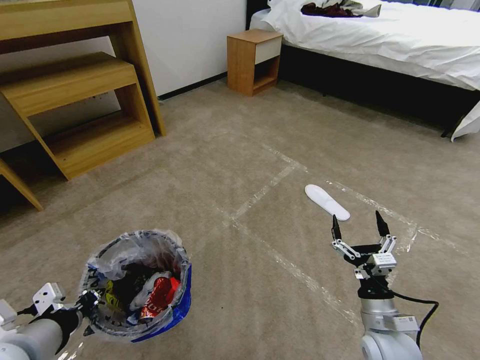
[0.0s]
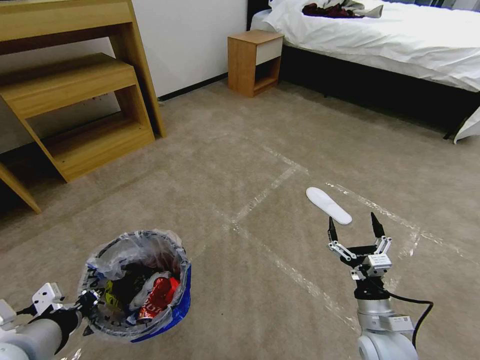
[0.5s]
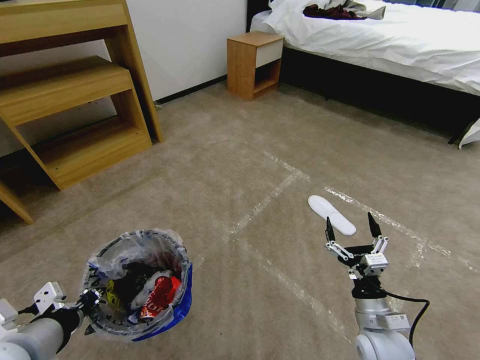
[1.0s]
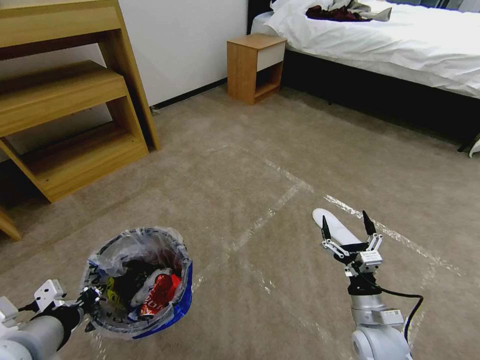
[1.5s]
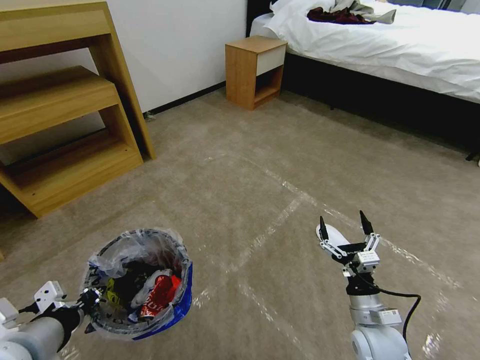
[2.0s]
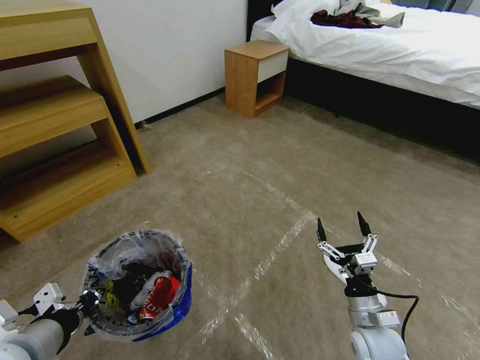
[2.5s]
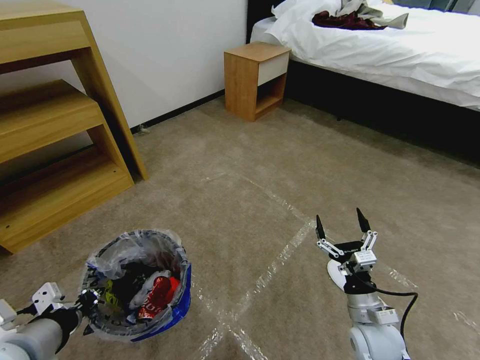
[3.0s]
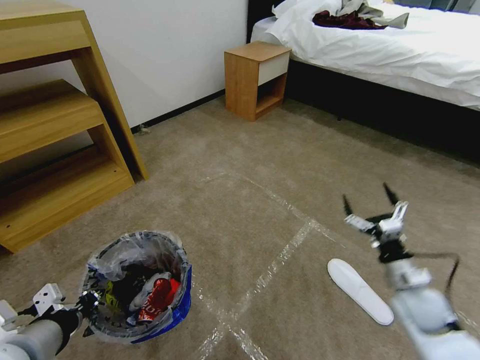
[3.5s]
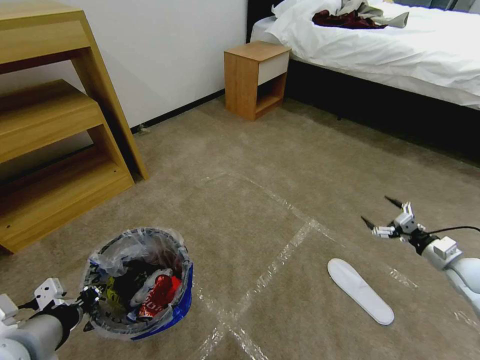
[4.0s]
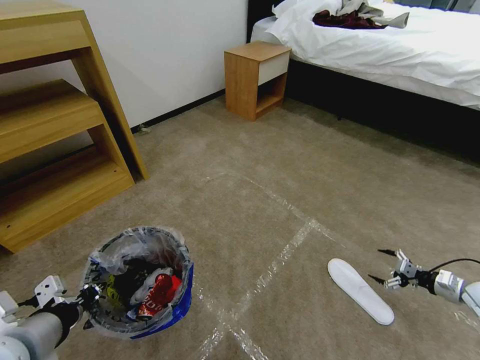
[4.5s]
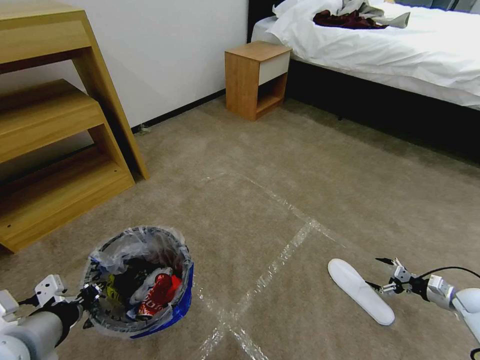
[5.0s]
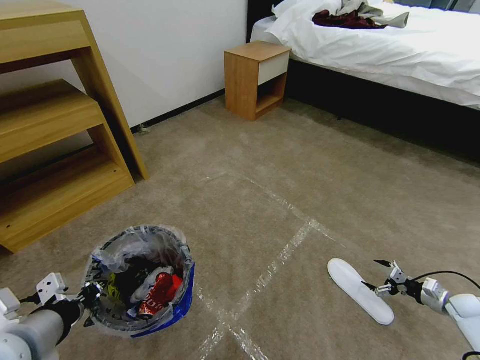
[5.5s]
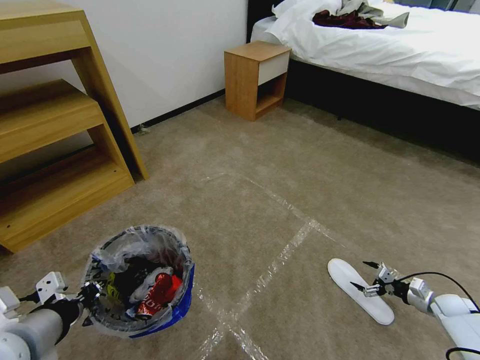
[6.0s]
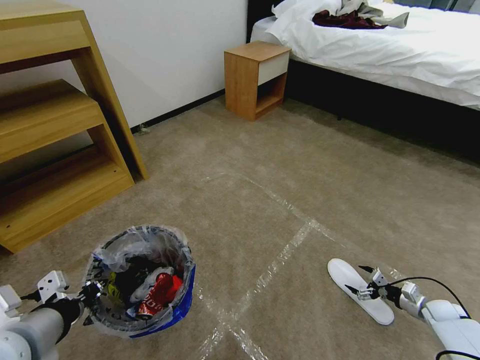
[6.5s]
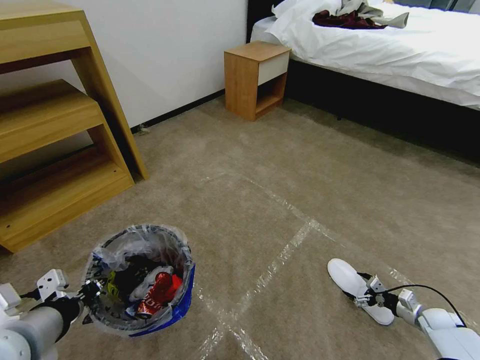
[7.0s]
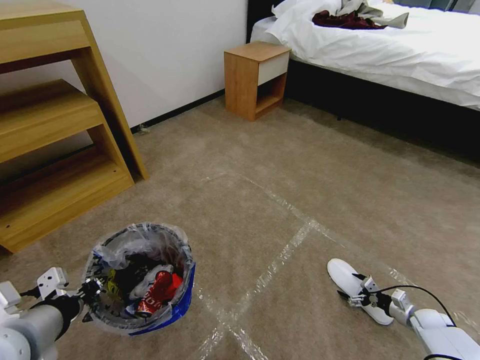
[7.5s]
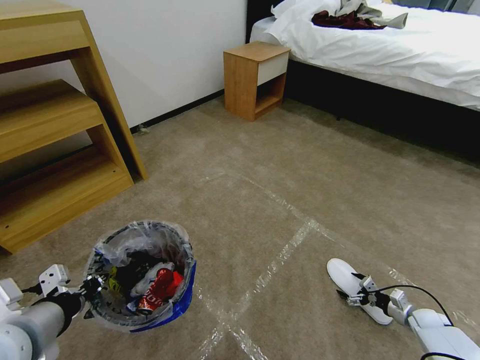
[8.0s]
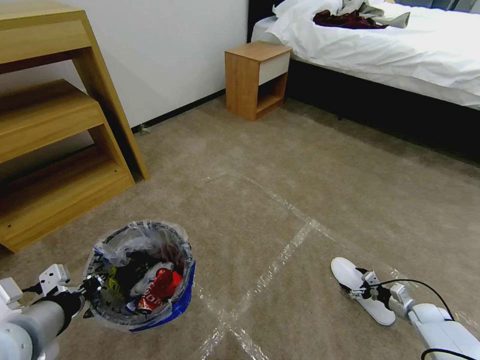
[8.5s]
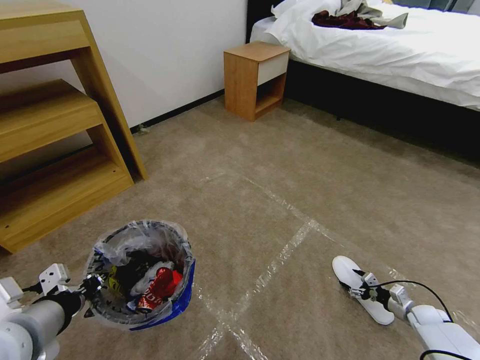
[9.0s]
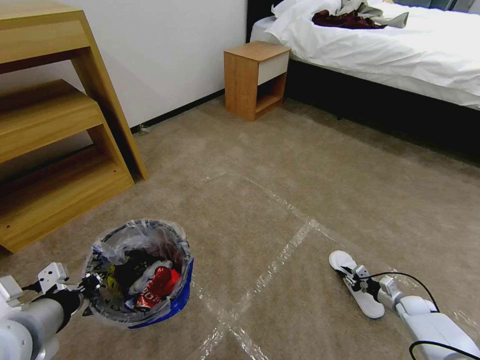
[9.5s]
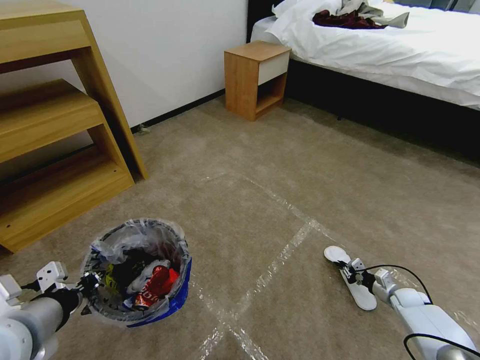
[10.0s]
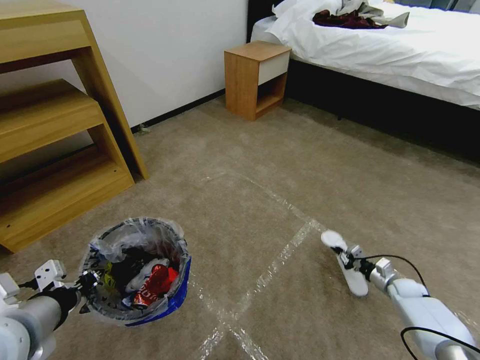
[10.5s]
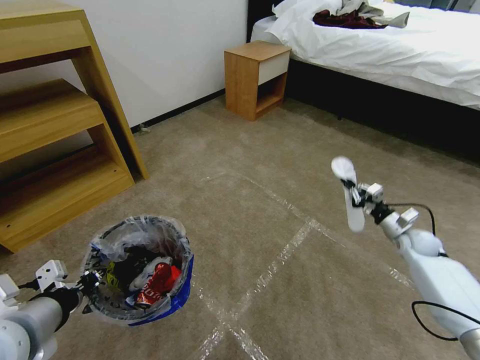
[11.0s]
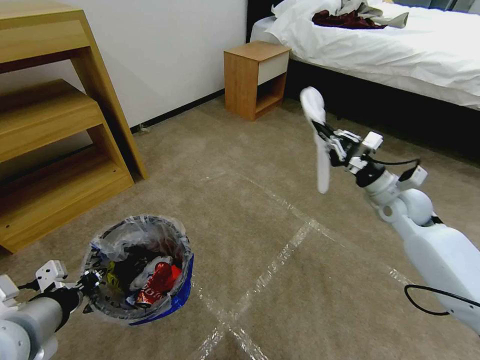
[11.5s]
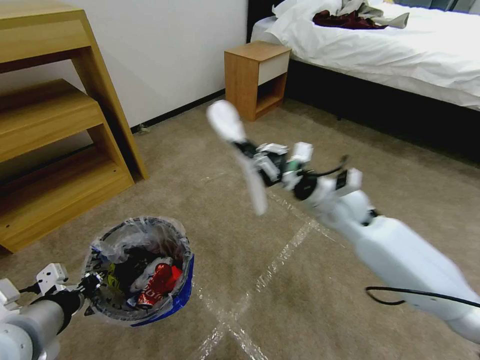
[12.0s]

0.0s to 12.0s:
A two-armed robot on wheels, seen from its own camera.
Task of the whole recording: Pick up the trash bin and place the garbage on the floor into it.
2.0s to 4.0s: The right gripper moves to the right and forward, about 30 cm.
4.0s to 6.0s: The right gripper travels downward by approximately 15 cm.
6.0s to 8.0s: The right gripper shifts approximately 5 cm downward.
8.0s to 10.0s: The right gripper is displaced forward by some 5 cm, and closes its fingers.
10.0s to 12.0s: The right gripper heads upward and to the left, covering about 50 cm.

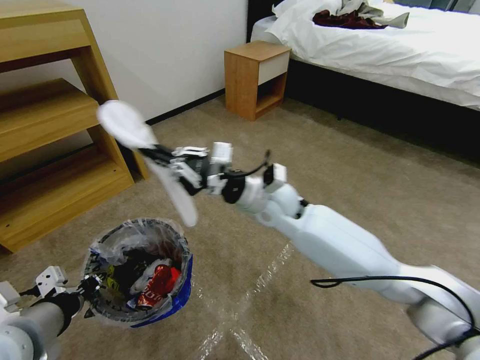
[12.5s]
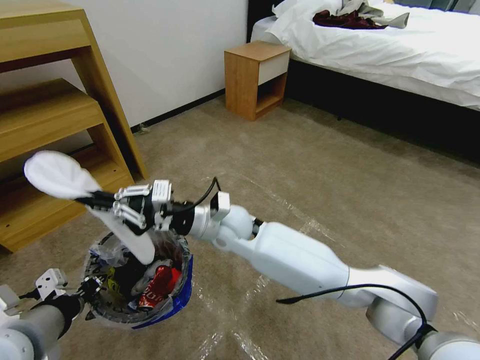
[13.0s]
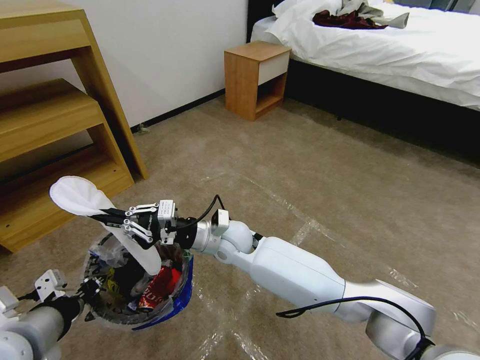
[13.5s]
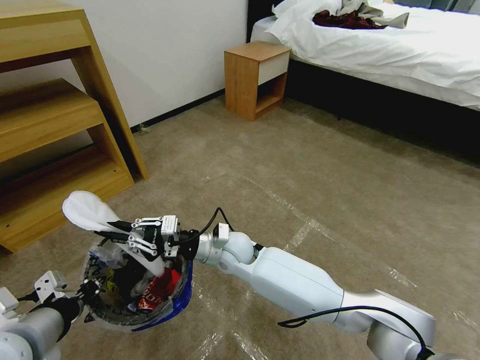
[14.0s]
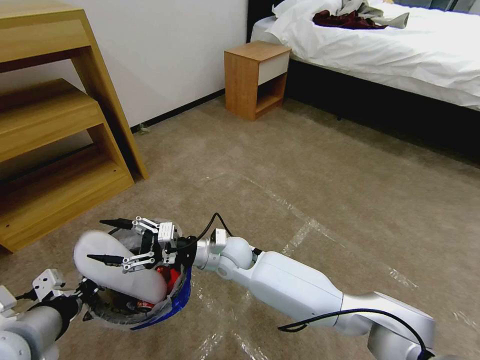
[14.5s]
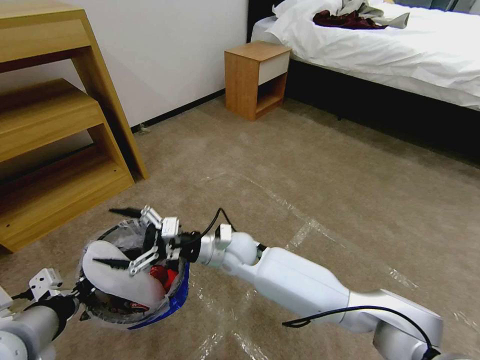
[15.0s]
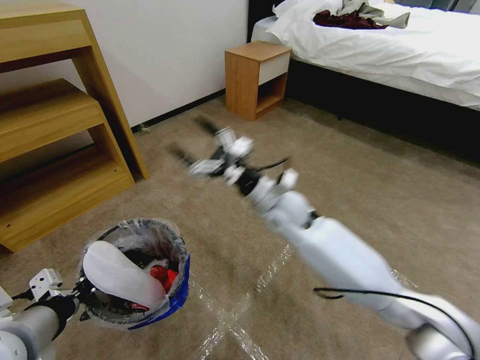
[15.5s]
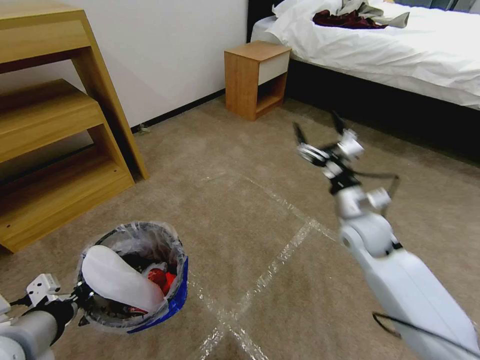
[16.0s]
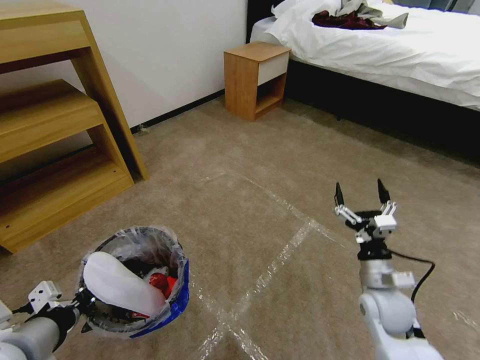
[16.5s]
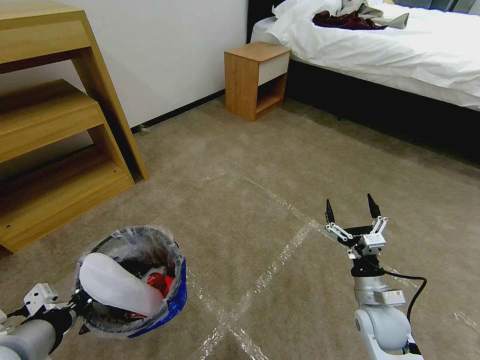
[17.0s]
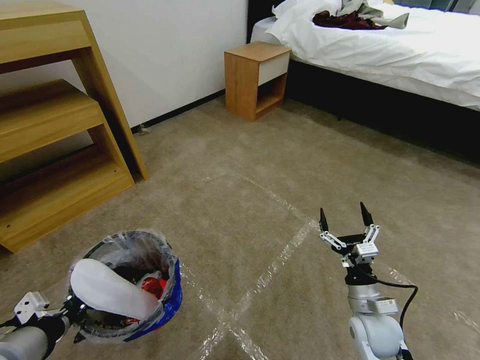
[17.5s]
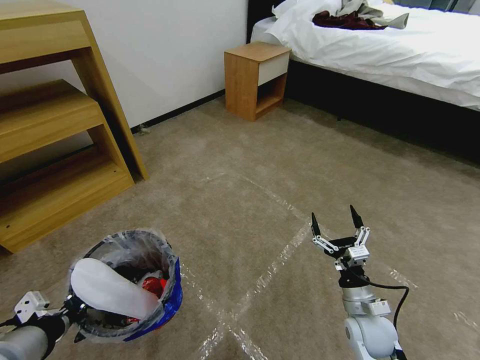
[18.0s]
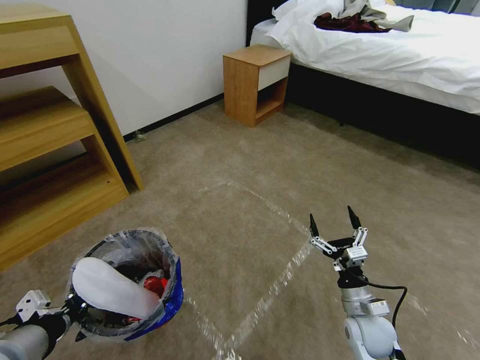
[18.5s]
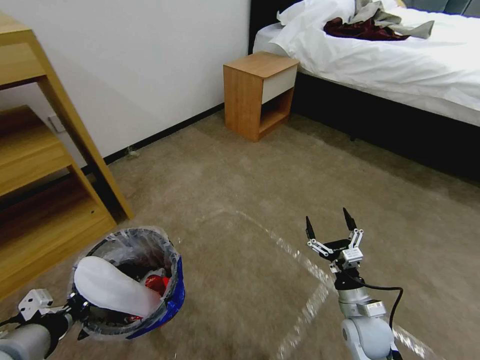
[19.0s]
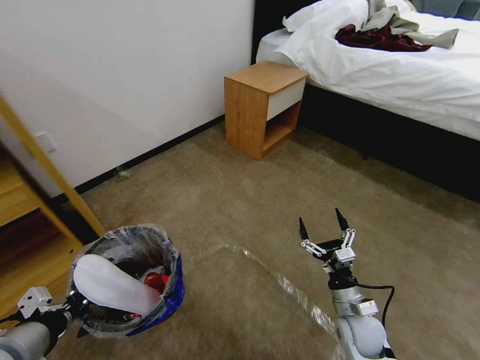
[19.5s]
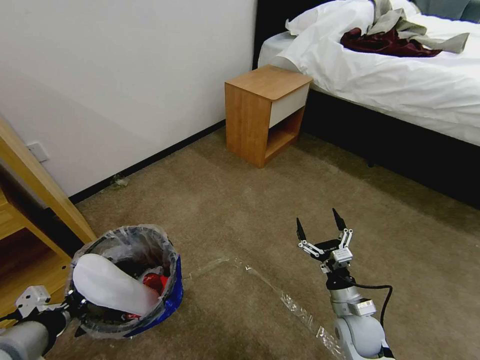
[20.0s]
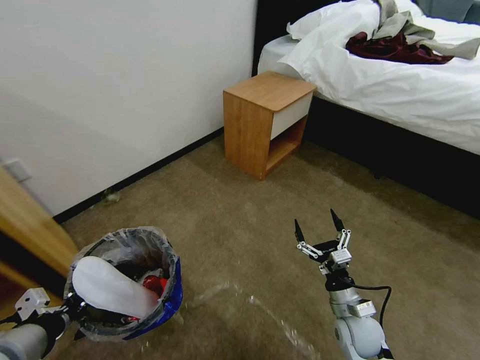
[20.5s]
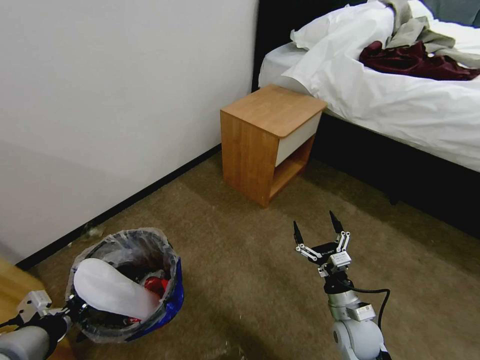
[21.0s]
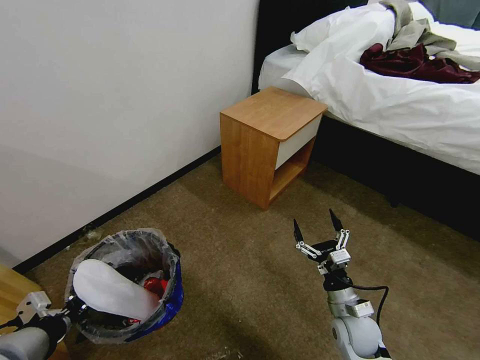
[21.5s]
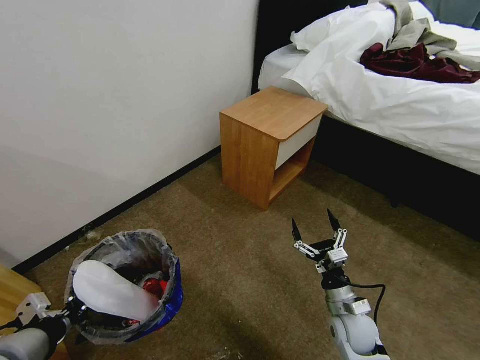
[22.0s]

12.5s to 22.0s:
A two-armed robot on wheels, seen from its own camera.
Task of the whole recording: Pick up the trash bin and place the garbage on the floor into it.
12.5s to 14.5s: The right gripper goes roughly 15 cm downward and to the left, and opens up.
14.5s to 16.5s: The right gripper moves to the right, about 35 cm.
16.5s to 18.0s: The right gripper travels downward by about 5 cm.
